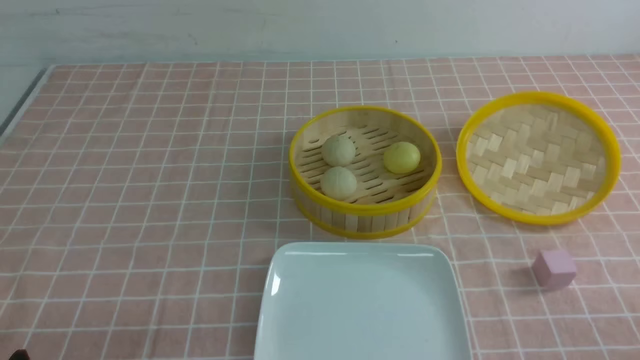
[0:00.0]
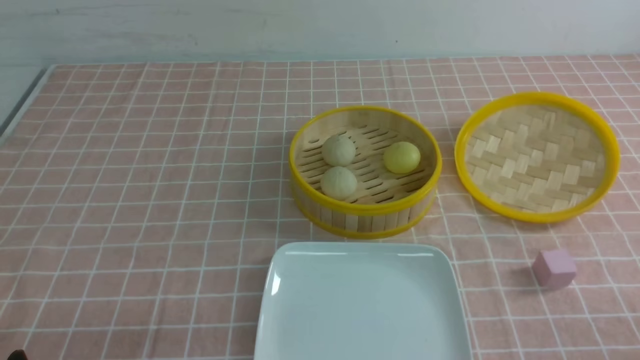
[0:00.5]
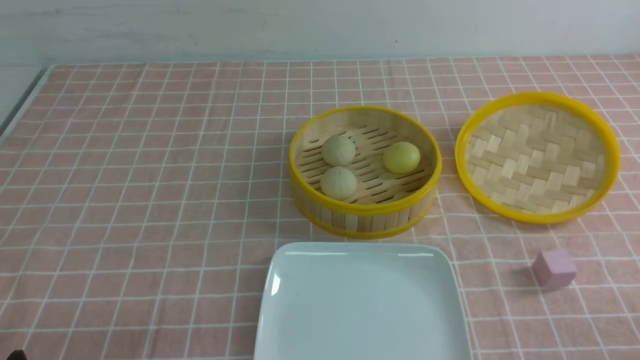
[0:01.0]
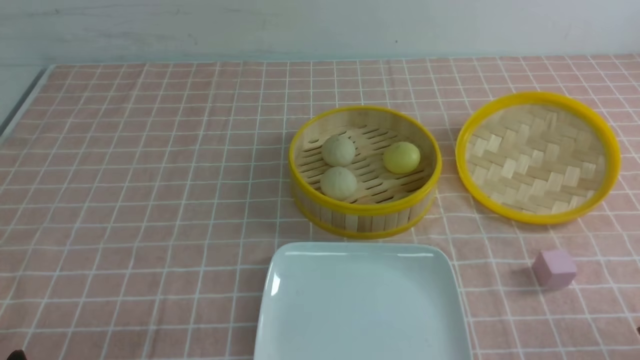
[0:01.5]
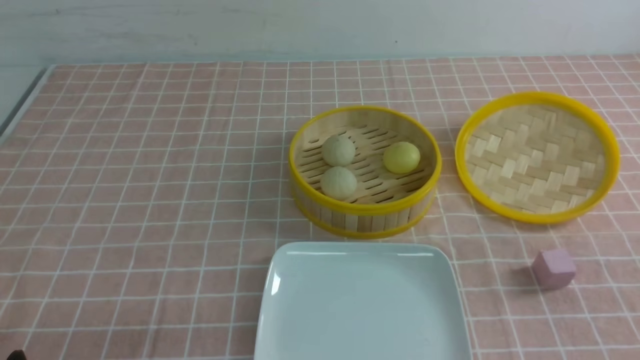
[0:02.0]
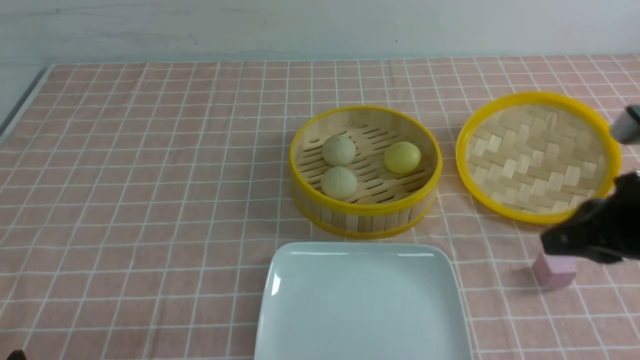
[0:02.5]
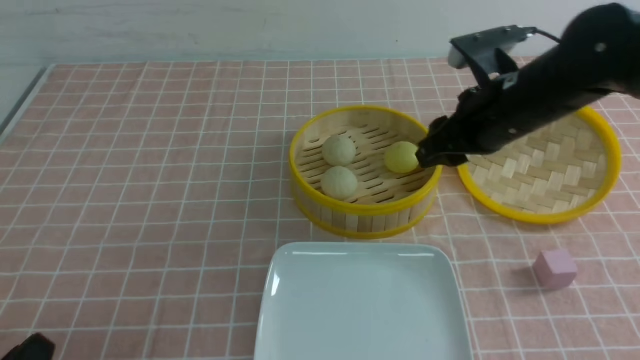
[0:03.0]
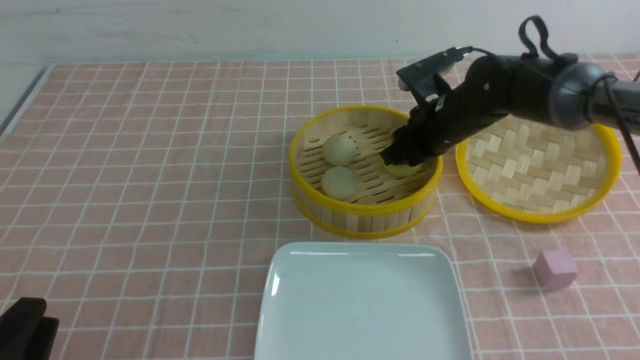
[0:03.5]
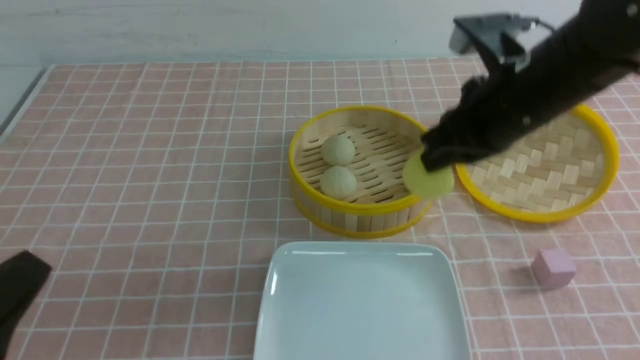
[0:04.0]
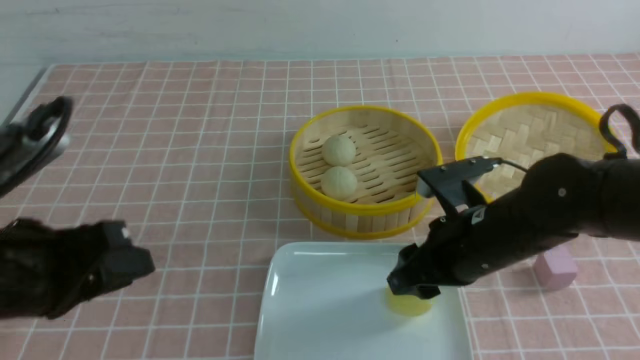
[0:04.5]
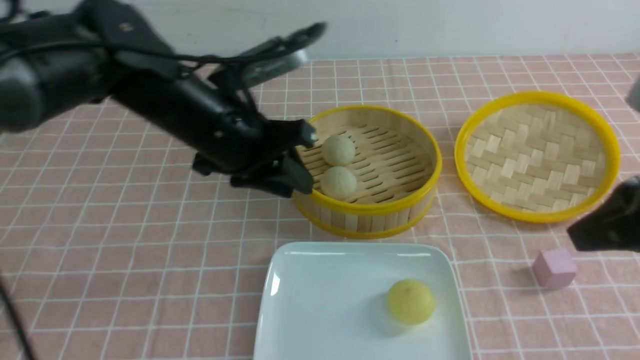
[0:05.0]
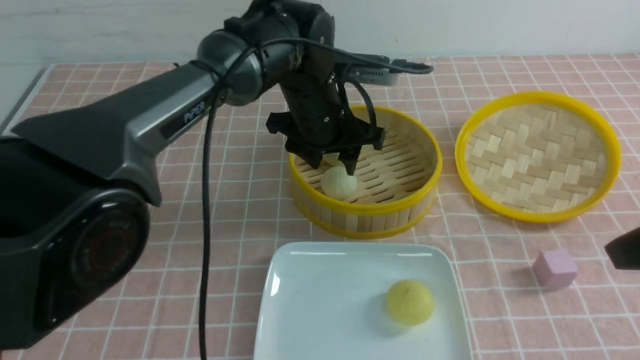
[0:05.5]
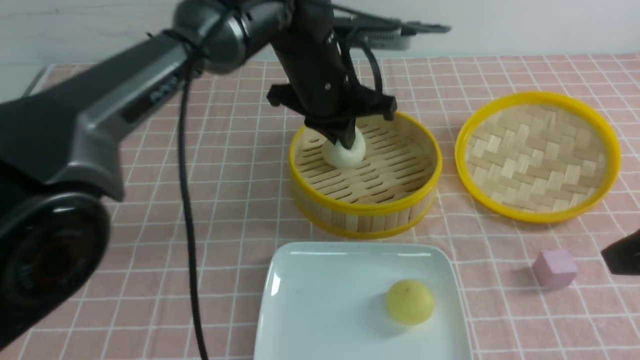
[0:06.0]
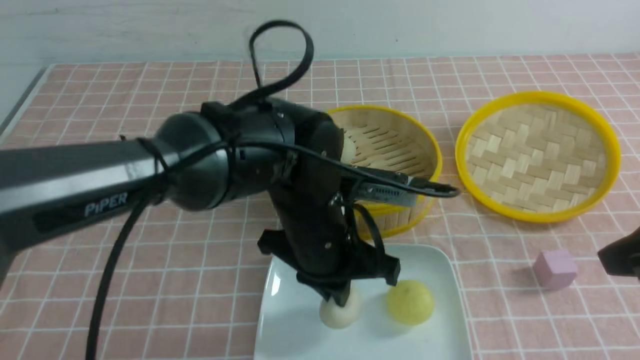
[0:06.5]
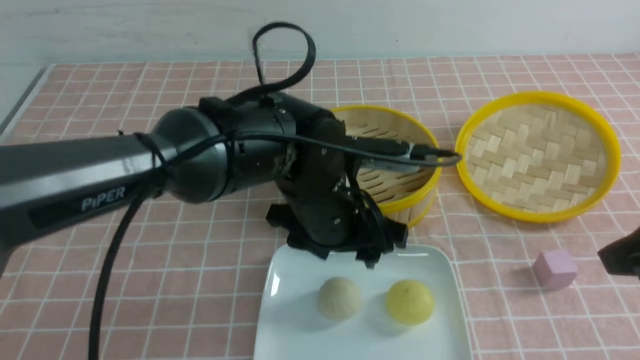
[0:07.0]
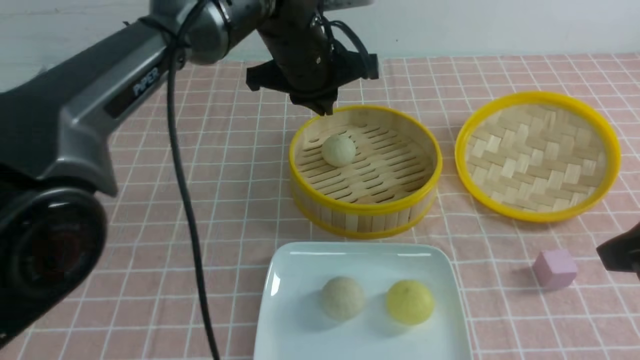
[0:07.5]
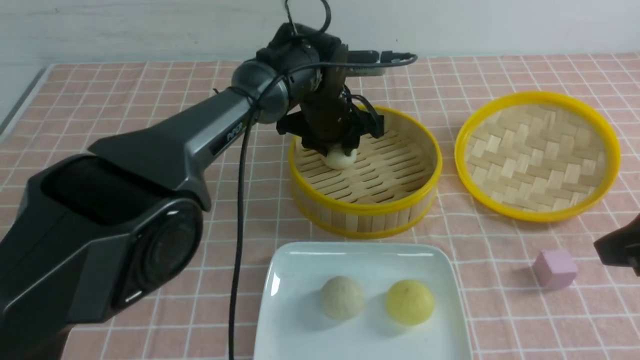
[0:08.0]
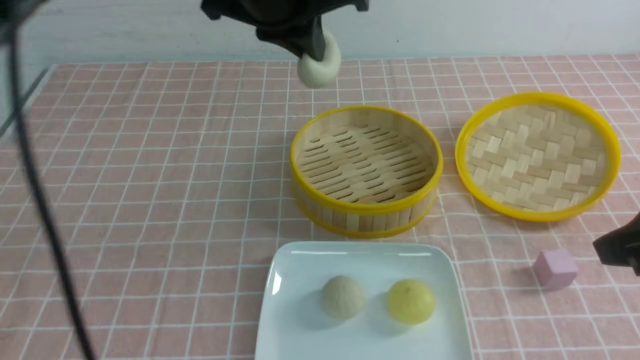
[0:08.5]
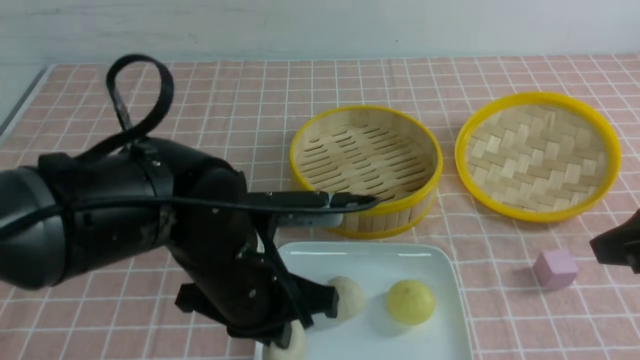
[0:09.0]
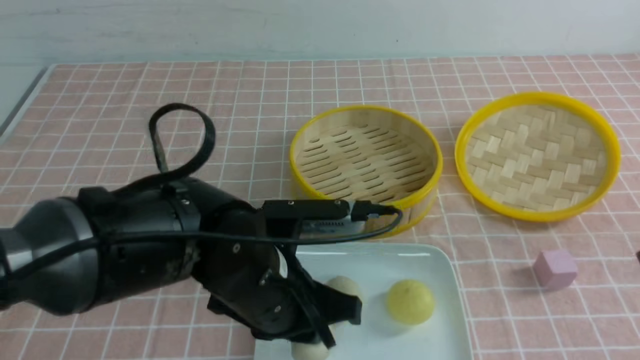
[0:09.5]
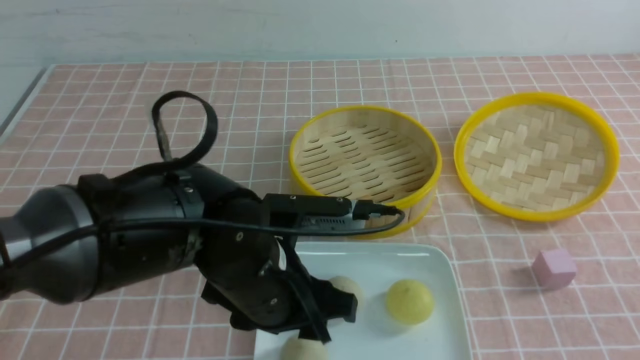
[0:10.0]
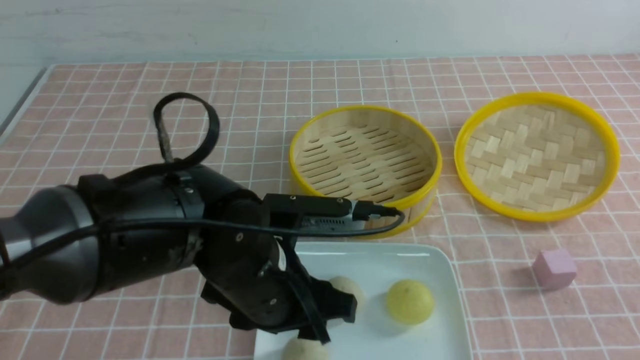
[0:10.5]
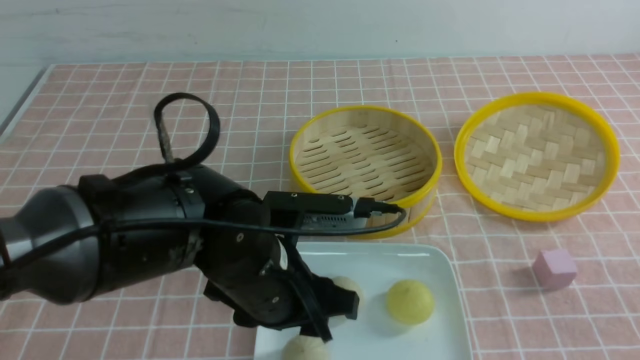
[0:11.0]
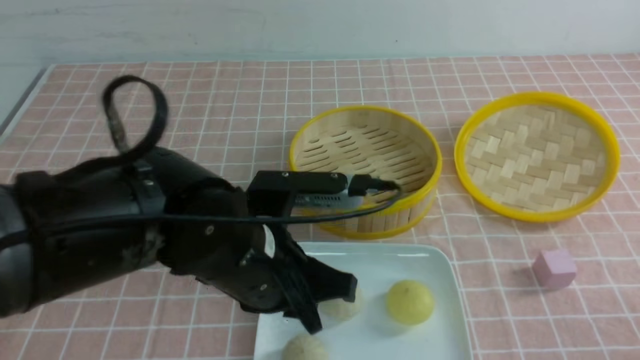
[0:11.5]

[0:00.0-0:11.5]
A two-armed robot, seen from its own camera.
Step, 0:00.0 to 0:03.5: use the right arm to grab the steamed stuffed bun that is closest to it.
Step, 0:05.0 to 0:05.5: use the left arm to grab the steamed stuffed bun that is closest to it.
Step, 0:06.0 to 0:06.5: use the left arm to put the steamed stuffed bun into the plate.
Step, 0:07.0 to 0:08.0: use the left arm to grab the steamed stuffed bun that is closest to it.
Step, 0:08.5 to 0:09.5: use the left arm to put the steamed stuffed bun into the plate.
0:02.0 to 0:04.0: The right gripper travels forward and to the left by some 30 cm, and opens and closes again. The left gripper goes some 10 cm upward.
0:04.0 to 0:06.0: The right gripper moves backward, to the right and upward, about 20 cm, and opens and closes again. The left gripper moves forward and to the right, about 40 cm, and closes its fingers.
0:06.0 to 0:07.5: The left gripper moves approximately 10 cm backward and comes back, and opens, then closes again.
0:07.5 to 0:09.5: The left gripper goes approximately 20 cm backward and downward; the right gripper shifts some 5 cm backward.
0:09.5 to 0:11.5: The left gripper goes roughly 5 cm upward, and opens, then closes once more. The right gripper moves downward and backward, roughly 20 cm.

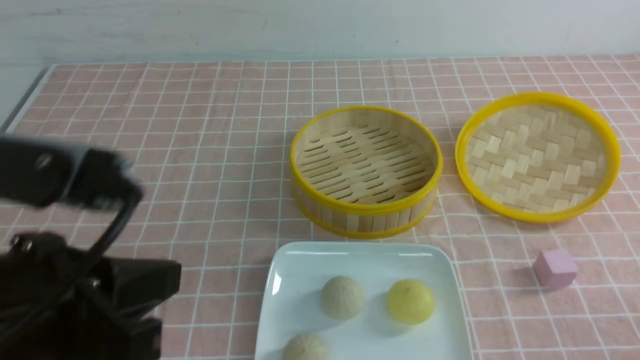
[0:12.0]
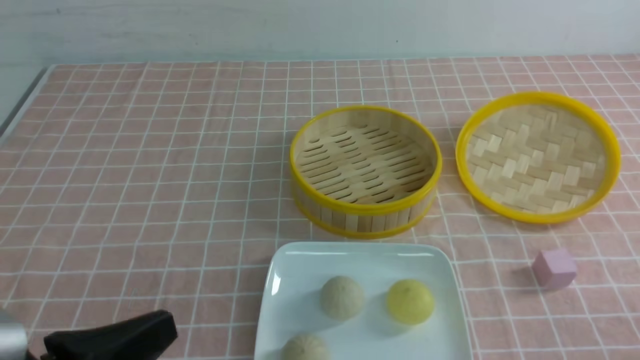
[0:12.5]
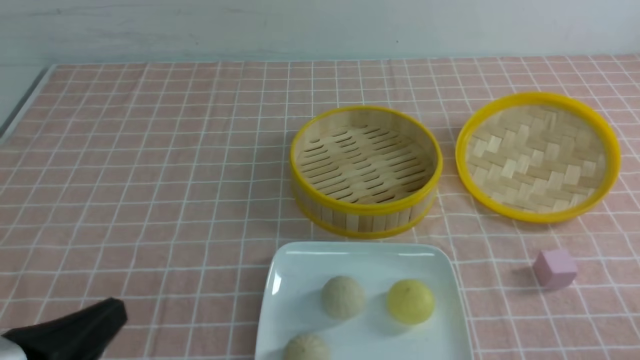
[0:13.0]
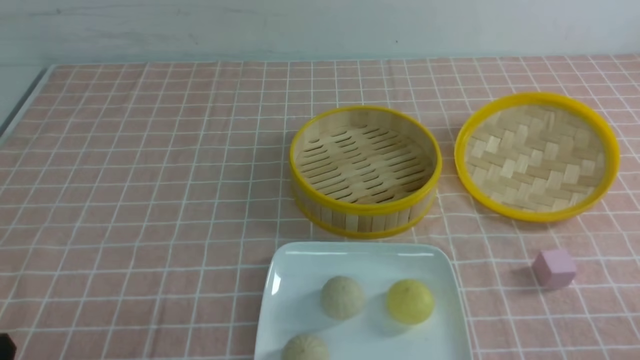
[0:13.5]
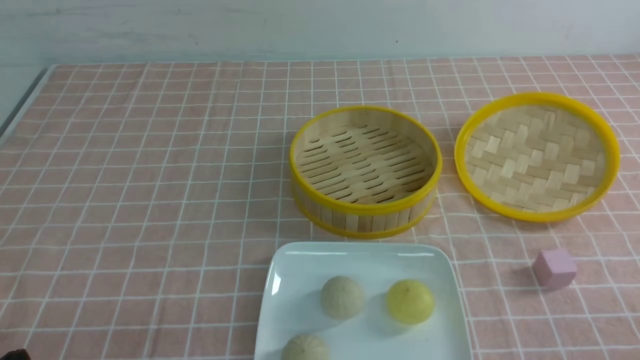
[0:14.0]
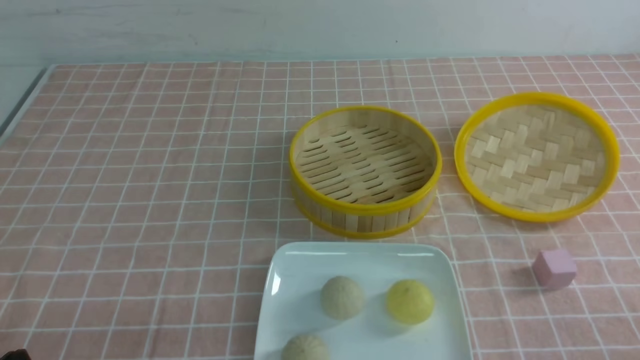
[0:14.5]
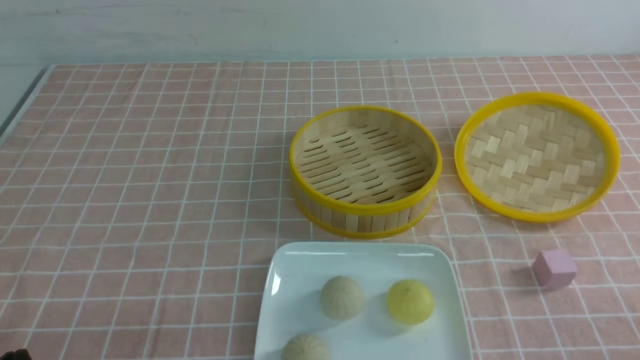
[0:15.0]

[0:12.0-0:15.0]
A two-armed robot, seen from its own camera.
0:12.0 to 0:13.5: The left gripper heads downward and to the left, covering approximately 15 cm.
0:13.5 to 0:15.0: The two grippers keep their place.

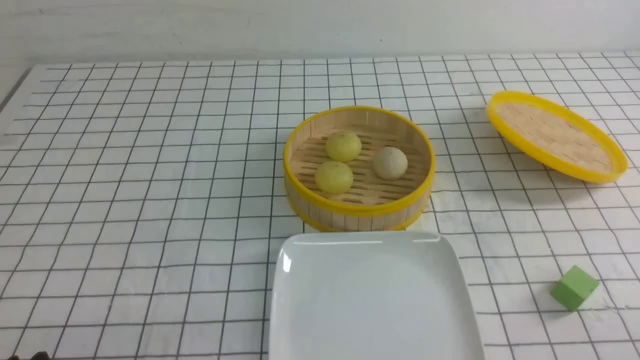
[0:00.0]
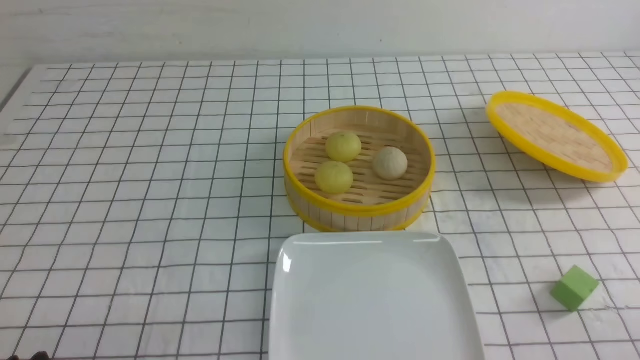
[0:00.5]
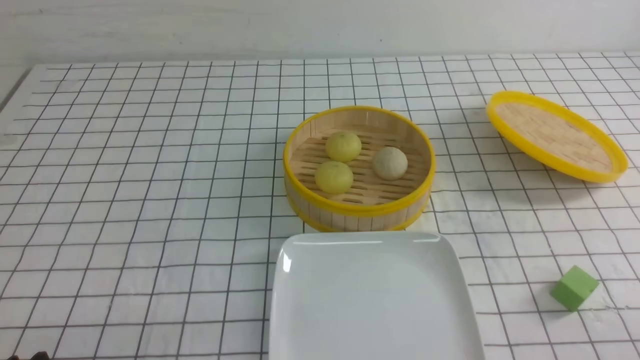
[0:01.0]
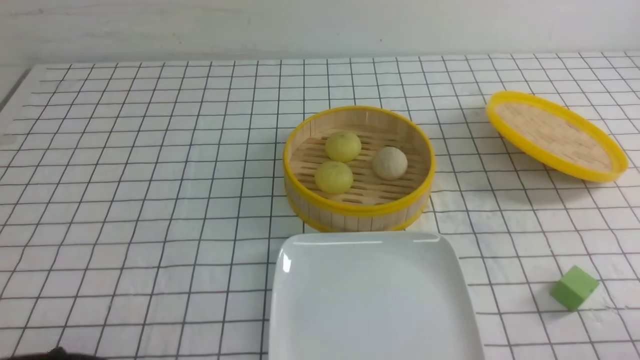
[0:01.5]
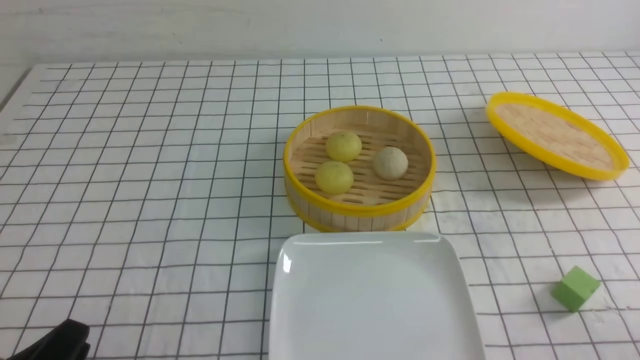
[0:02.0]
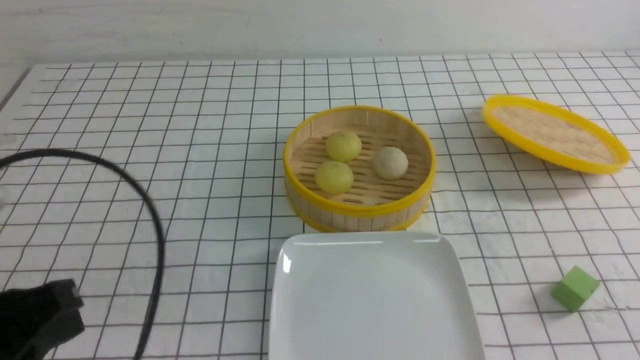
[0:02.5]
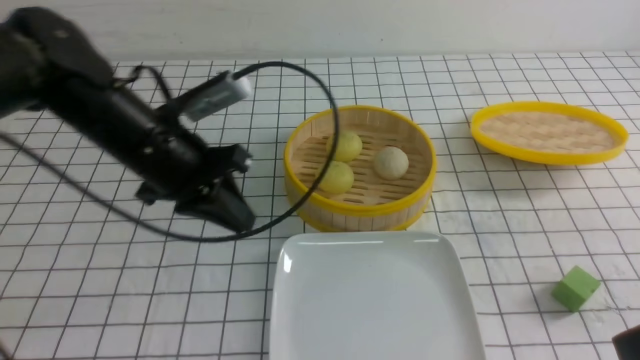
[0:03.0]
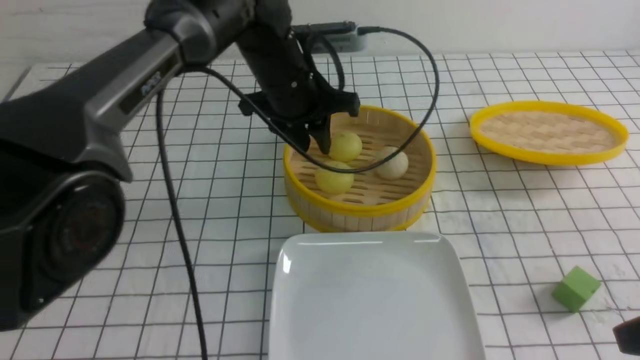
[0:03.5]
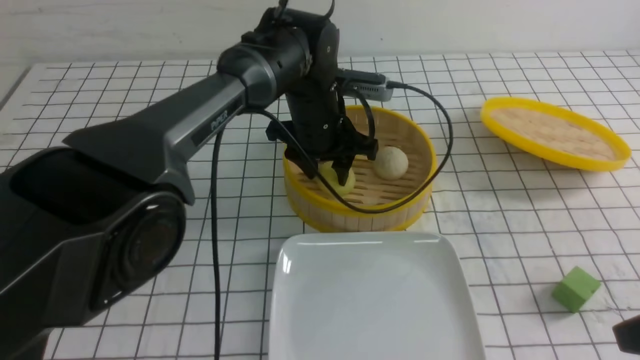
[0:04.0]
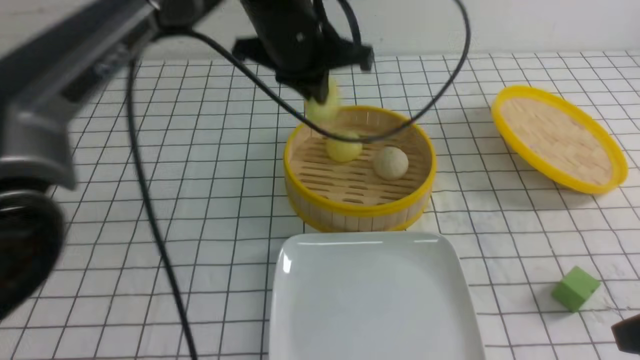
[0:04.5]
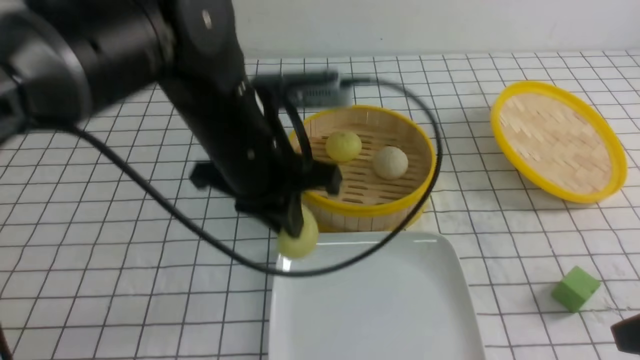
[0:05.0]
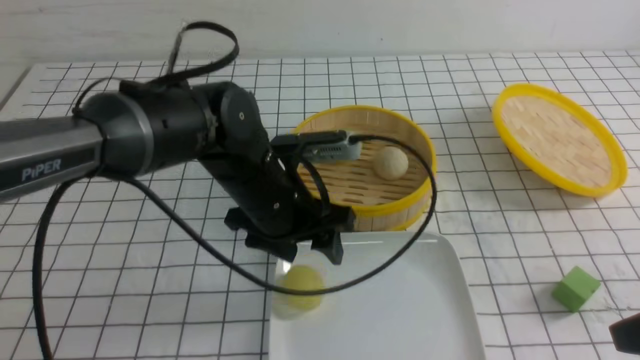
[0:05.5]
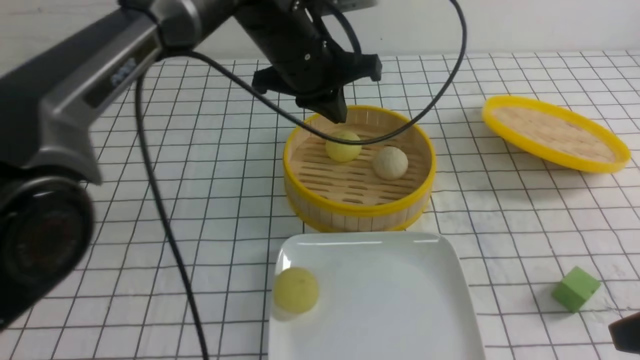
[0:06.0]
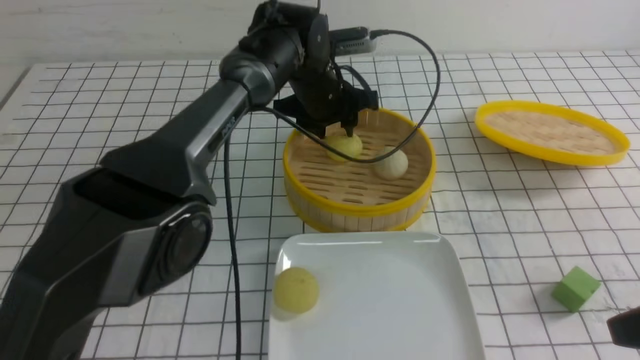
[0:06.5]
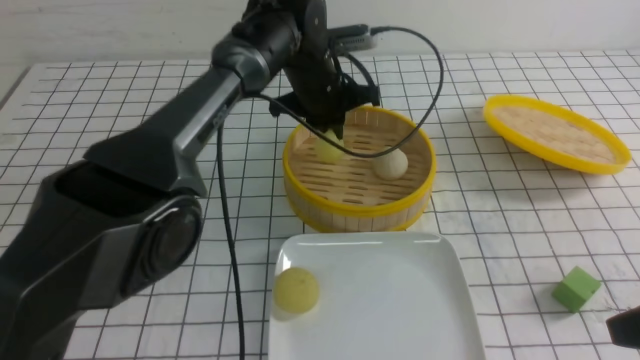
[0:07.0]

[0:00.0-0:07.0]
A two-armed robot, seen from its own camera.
Step, 0:00.0 to 0:04.0: use the left arm to grab the steamed stuffed bun that is closest to it.
Step, 0:04.5 to 0:05.0: use the left arm to put the steamed stuffed bun into the plate.
Step, 0:05.5 to 0:06.5: use the left arm to grab the steamed stuffed bun that is closest to it.
0:02.0 to 0:03.5: The right gripper goes some 10 cm forward and upward; the left gripper shifts approximately 40 cm forward and to the right, and closes and opens again.
0:03.5 to 0:05.0: The left gripper swings up and down, some 15 cm each way, with 2 reversals, and closes its fingers.
0:05.0 to 0:07.0: The left gripper is displaced forward by roughly 15 cm, and opens and closes again.
